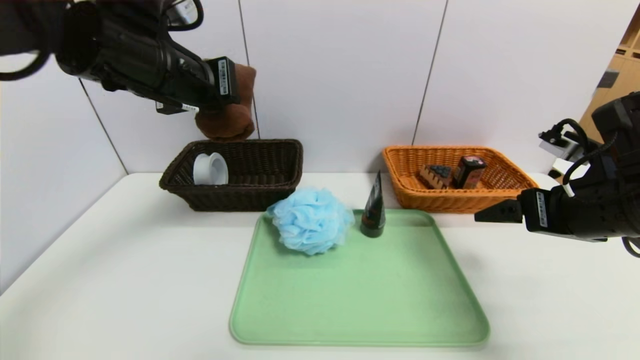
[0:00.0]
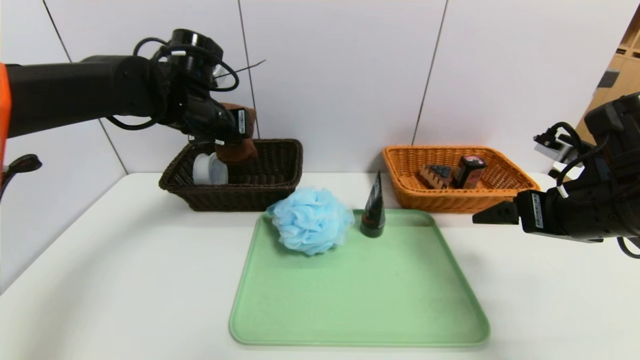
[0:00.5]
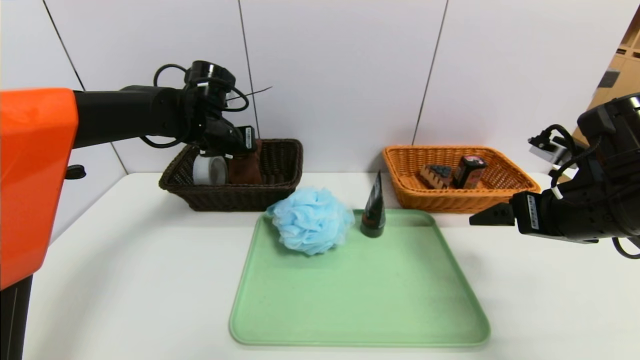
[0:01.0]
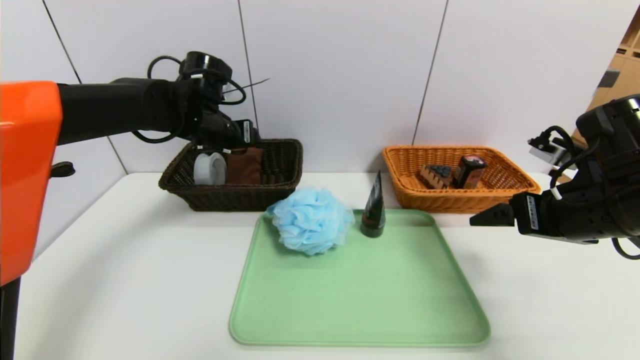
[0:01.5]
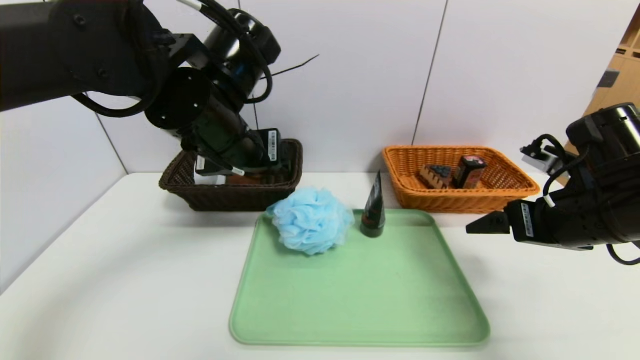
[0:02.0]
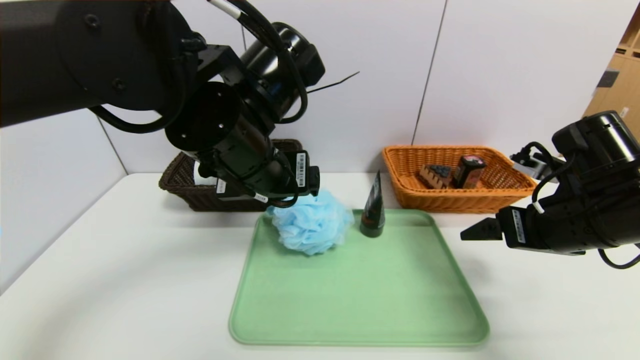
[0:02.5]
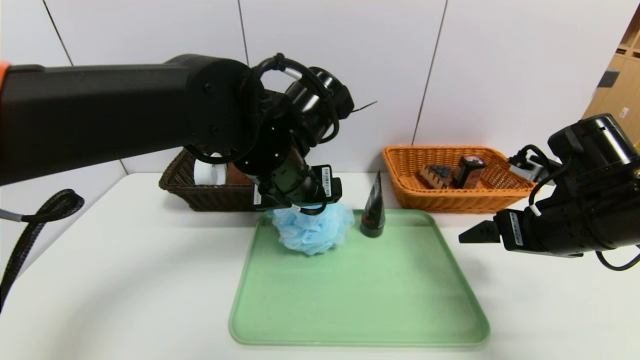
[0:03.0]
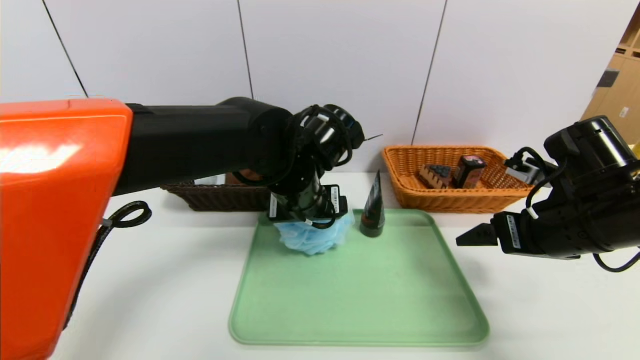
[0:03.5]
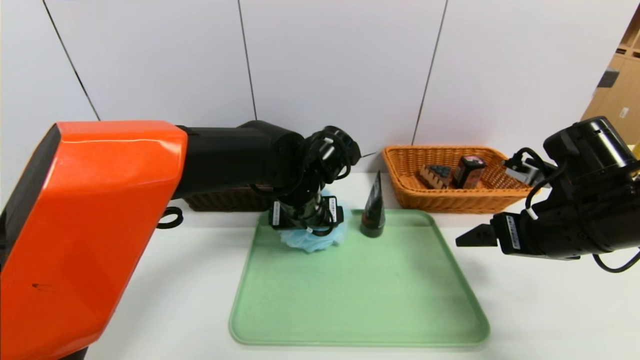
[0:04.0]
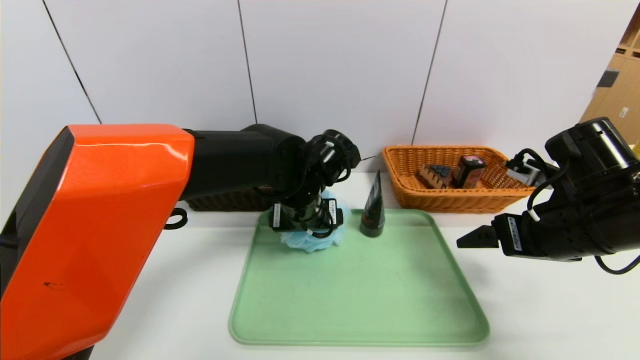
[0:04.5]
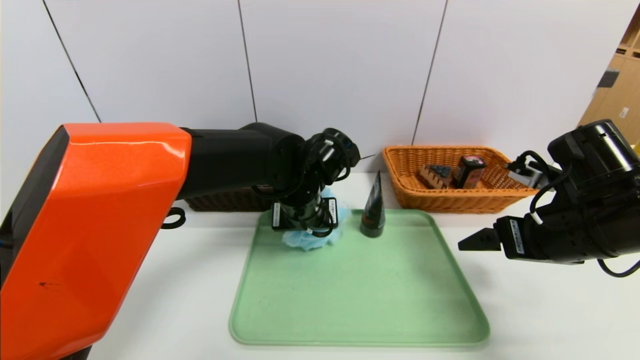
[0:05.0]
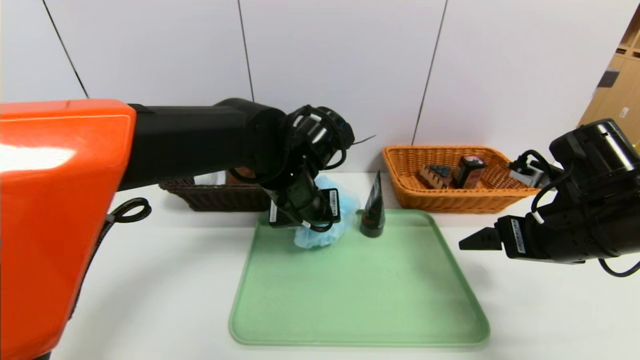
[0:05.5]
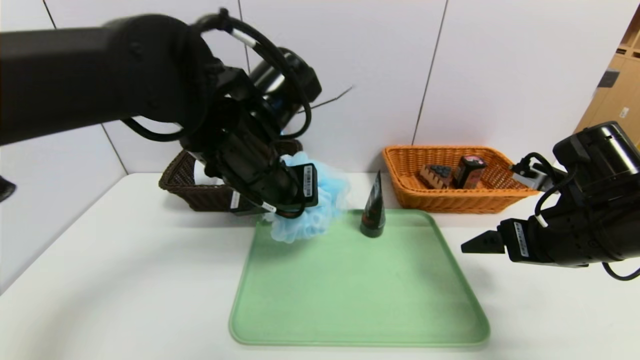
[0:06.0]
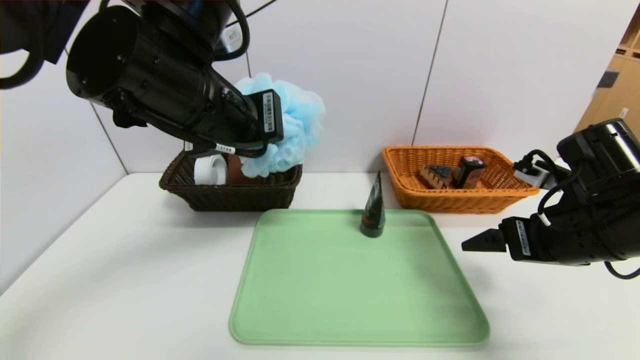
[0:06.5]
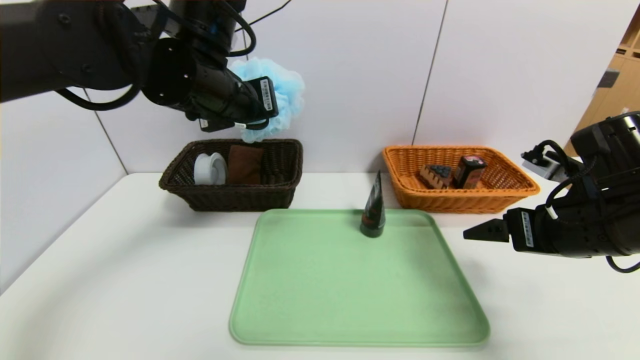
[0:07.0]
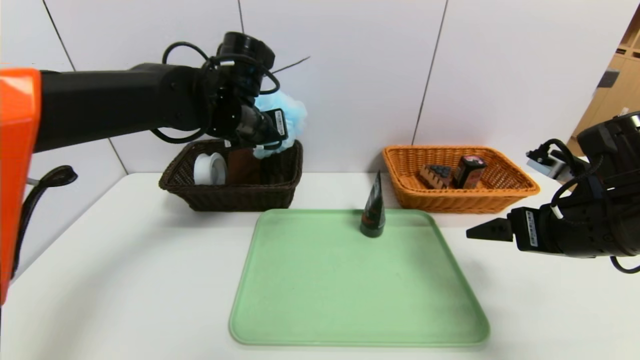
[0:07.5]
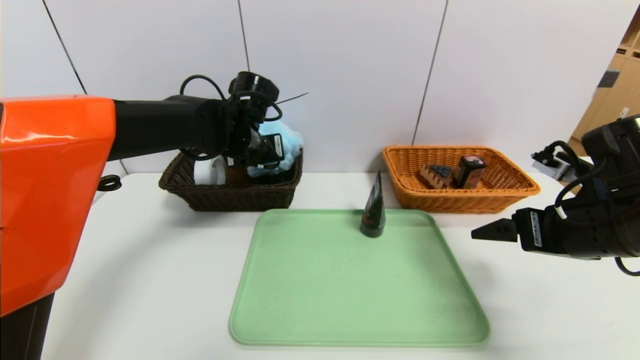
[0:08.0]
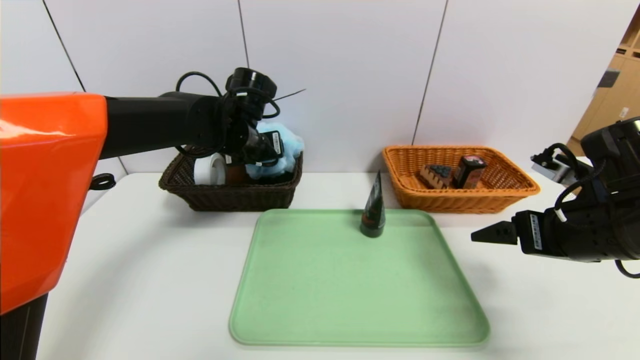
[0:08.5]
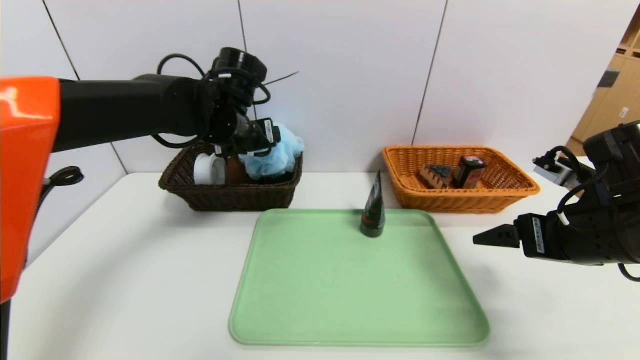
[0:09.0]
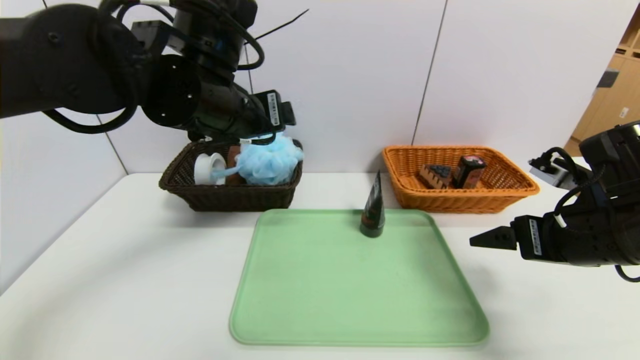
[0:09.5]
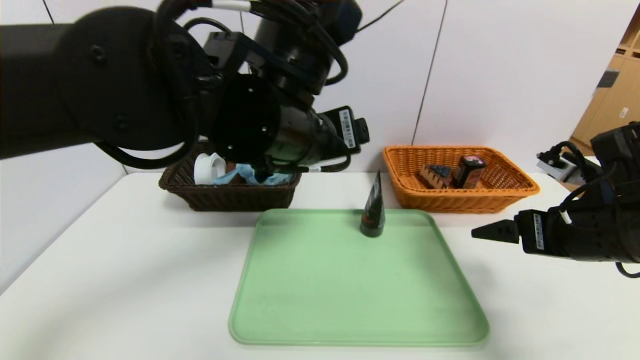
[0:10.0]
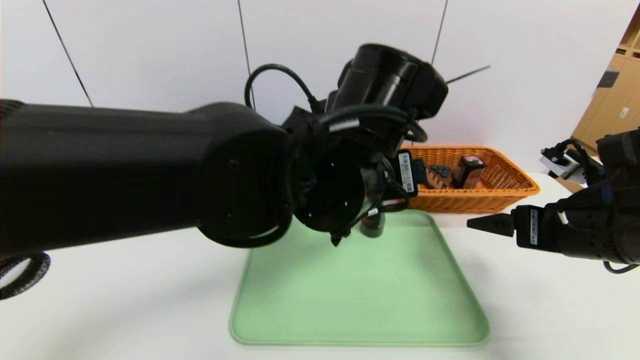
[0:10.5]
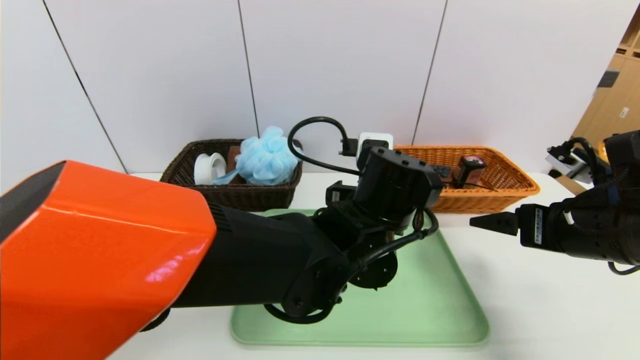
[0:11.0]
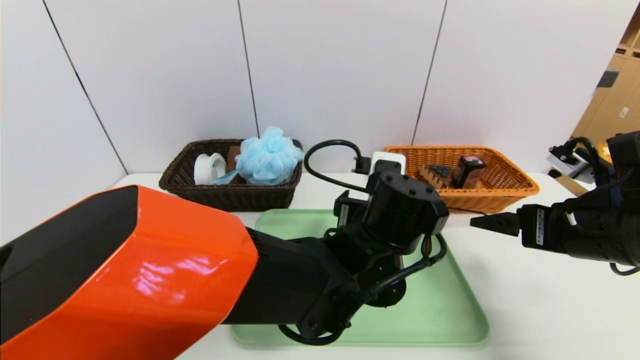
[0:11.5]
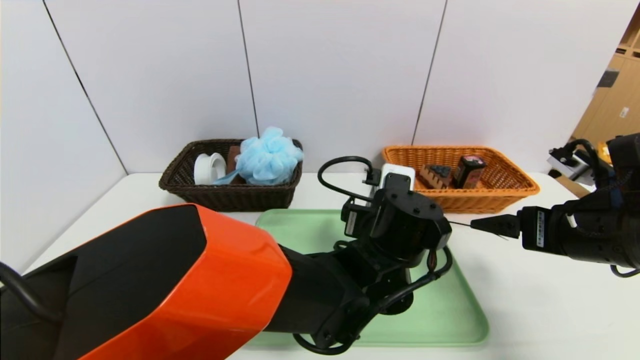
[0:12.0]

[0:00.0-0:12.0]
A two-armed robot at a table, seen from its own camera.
Task of the whole recording: place the food in the right basket with the right gripper, and place the non food items in the left basket with the left gripper.
Step, 0:02.0 to 0:09.0: Grasp the shower sphere and put it in the left basket.
0:00.0 to 0:02.0: The left gripper travels to the right and downward by some 10 cm, moves some 10 cm forward and comes back, and opens.
0:02.0 to 0:04.0: The left gripper heads downward, to the right and forward, covering roughly 15 cm.
0:04.0 to 0:06.0: The left gripper heads upward, backward and to the left, covering some 15 cm, and closes.
0:06.0 to 0:08.0: The left gripper travels forward by approximately 15 cm, and opens.
0:08.0 to 0:10.0: The left gripper moves backward, to the right and upward, roughly 20 cm, and opens up.
0:10.0 to 0:12.0: The left gripper travels downward and to the right by about 20 cm.

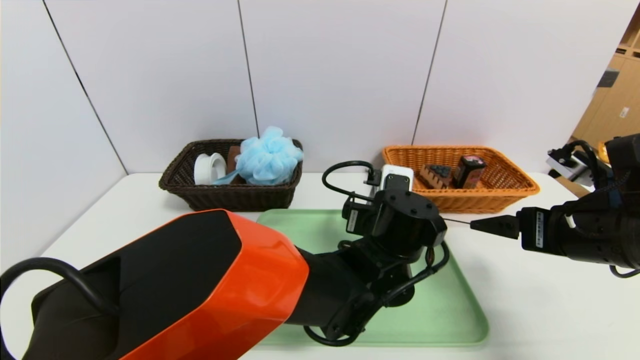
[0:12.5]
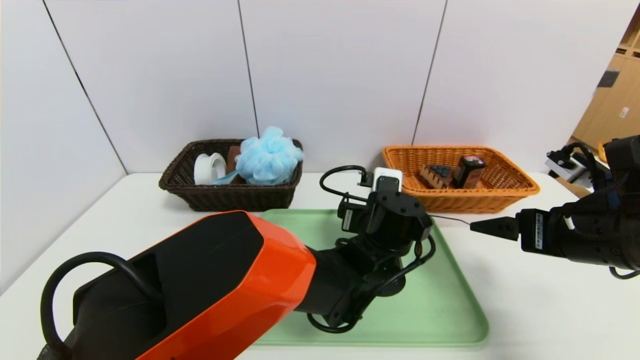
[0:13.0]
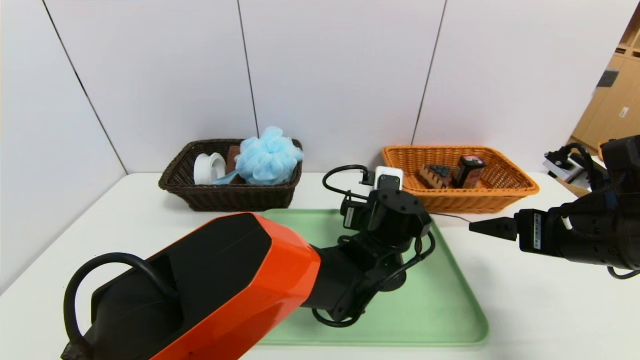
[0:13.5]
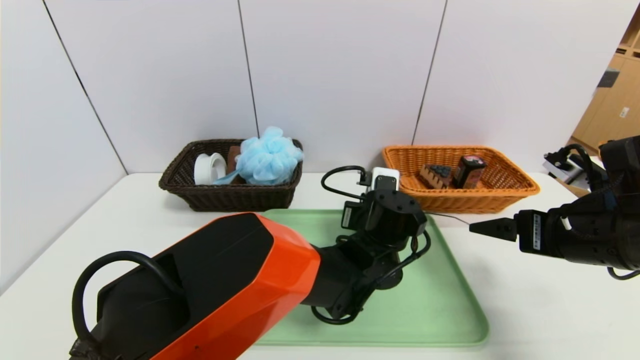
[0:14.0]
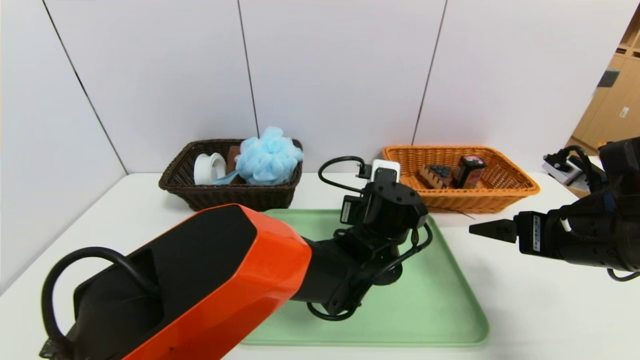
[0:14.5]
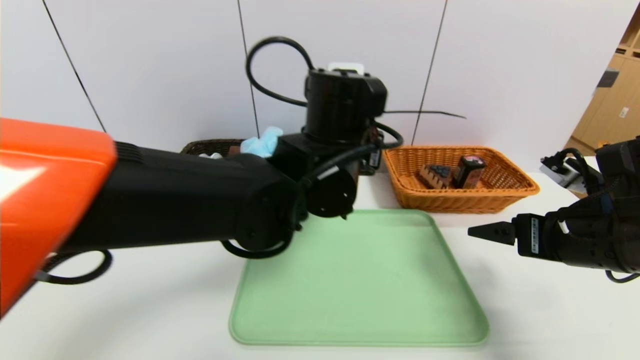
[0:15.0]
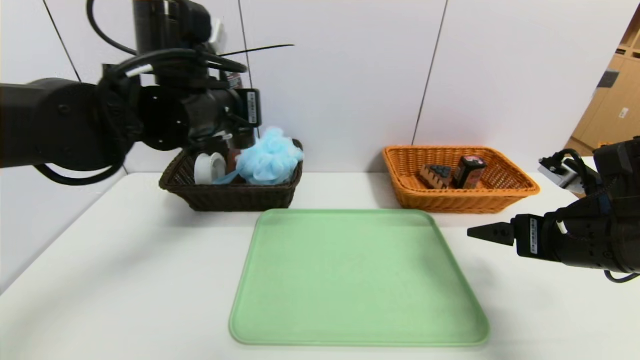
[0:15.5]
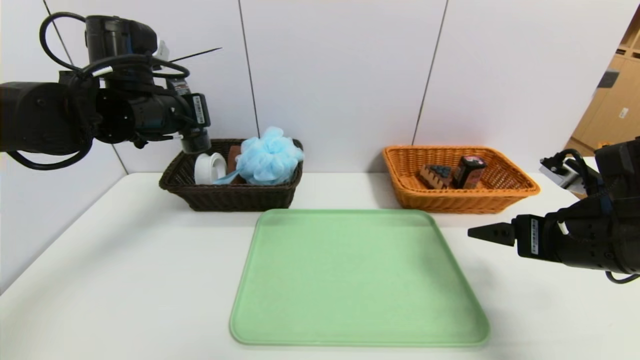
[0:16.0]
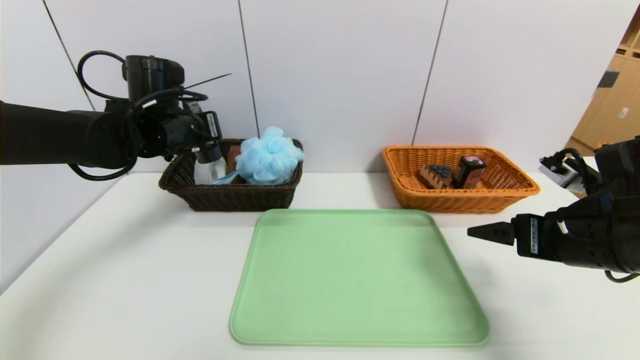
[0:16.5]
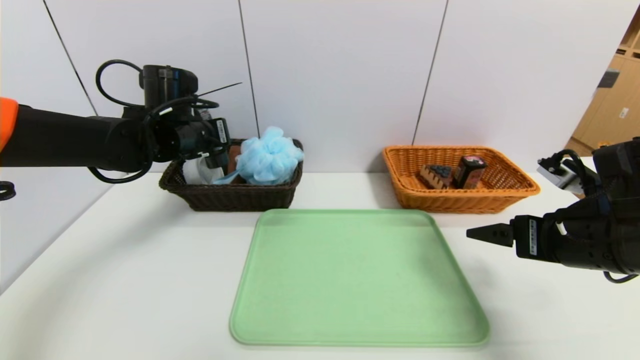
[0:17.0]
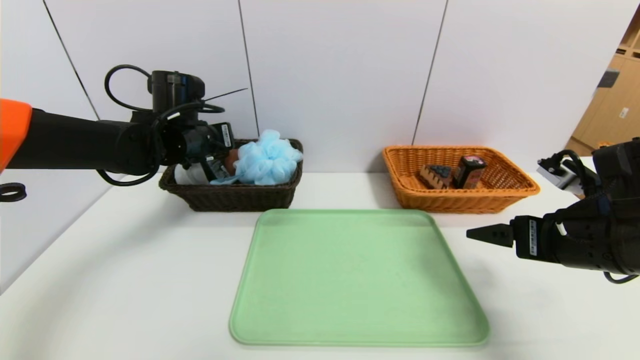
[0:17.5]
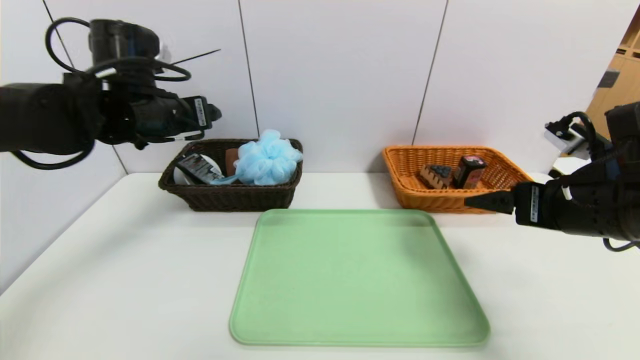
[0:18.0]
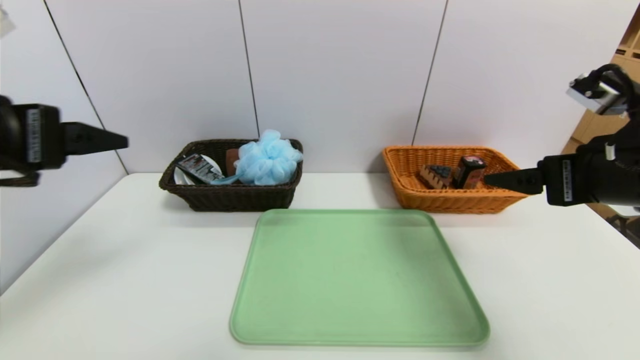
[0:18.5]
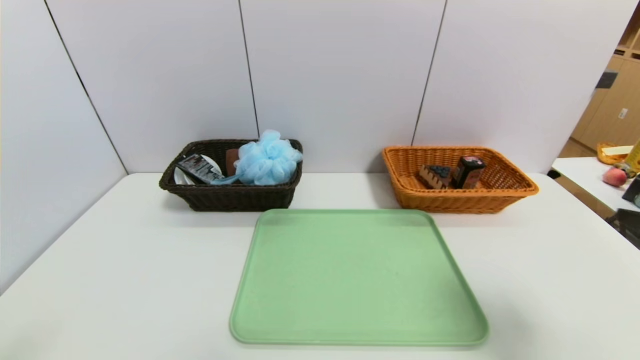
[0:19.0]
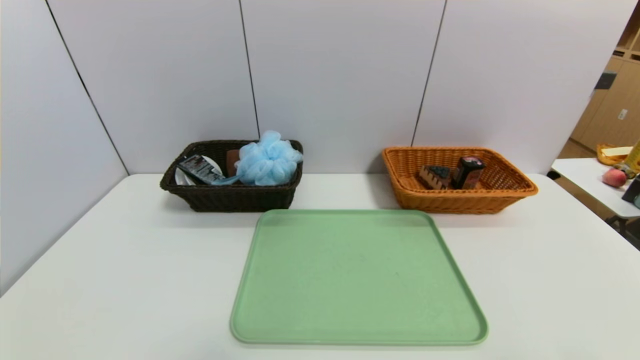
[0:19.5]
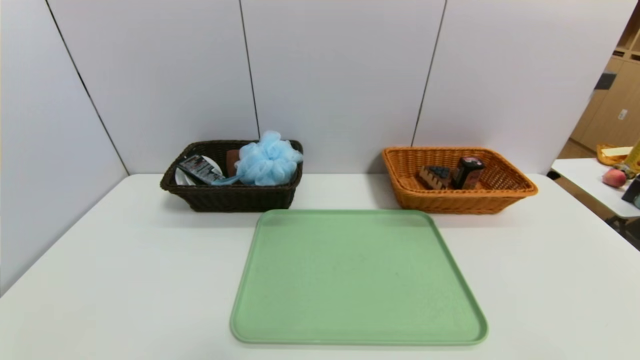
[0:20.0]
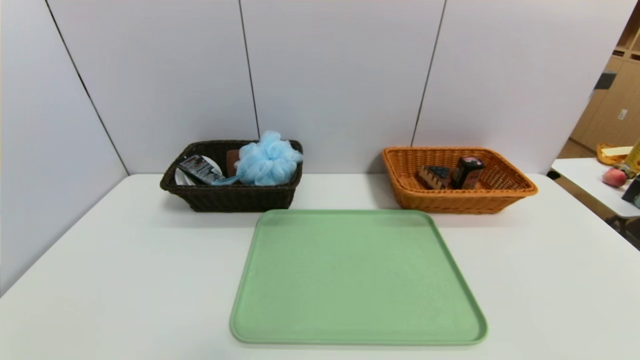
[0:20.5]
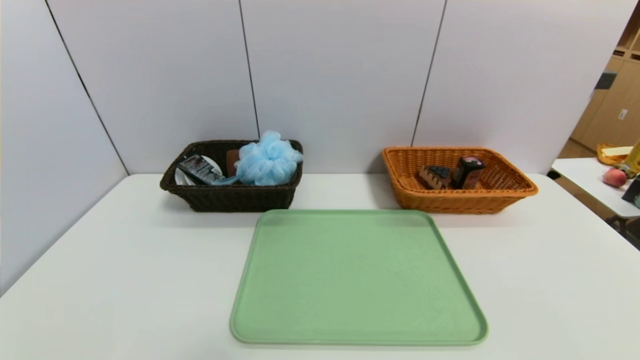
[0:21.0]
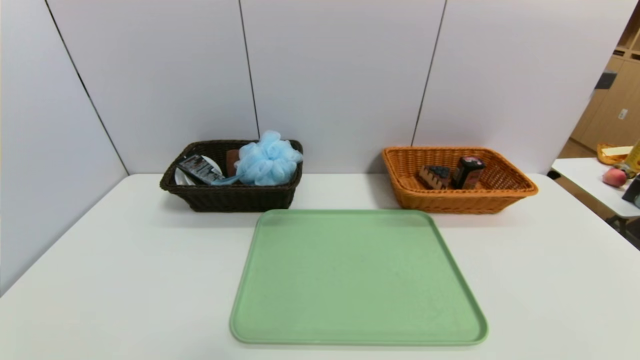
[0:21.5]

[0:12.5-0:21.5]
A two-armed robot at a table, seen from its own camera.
Task of the whole recording: place the food in the right basket with the right gripper, and place the non food items in the left basket with the left gripper.
Step, 0:12.5 to 0:18.5: Grasp the soft cleanser and put it in the left basket.
0:12.5 to 0:14.5: The left gripper closes.
0:14.5 to 0:17.0: The left gripper travels to the left by roughly 30 cm.
0:17.0 to 0:19.5: The left gripper moves backward, roughly 50 cm, and opens up; the right gripper moves backward, some 25 cm.
